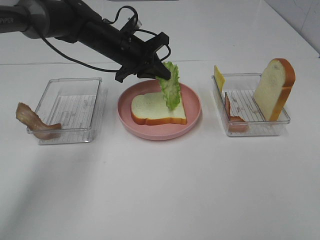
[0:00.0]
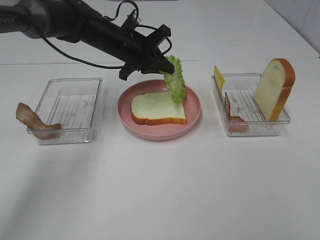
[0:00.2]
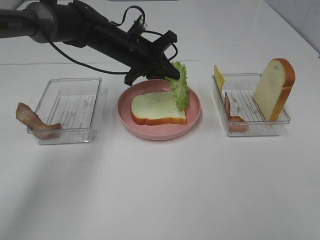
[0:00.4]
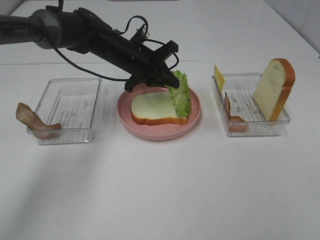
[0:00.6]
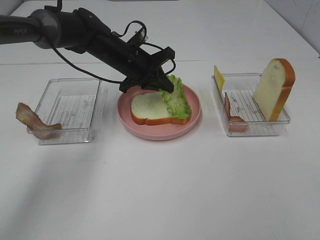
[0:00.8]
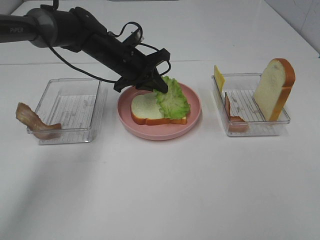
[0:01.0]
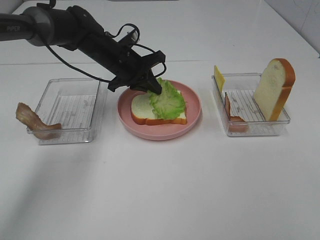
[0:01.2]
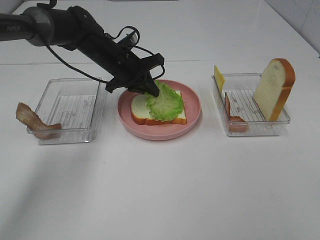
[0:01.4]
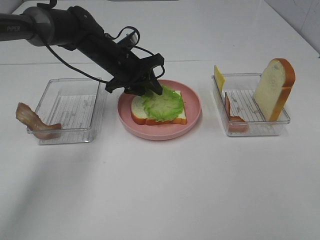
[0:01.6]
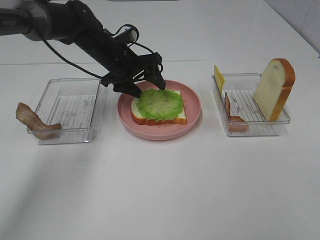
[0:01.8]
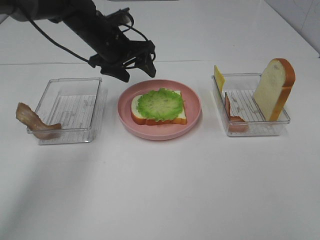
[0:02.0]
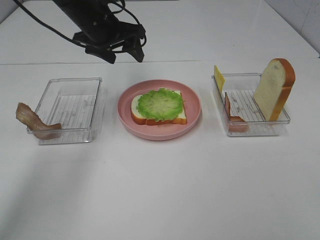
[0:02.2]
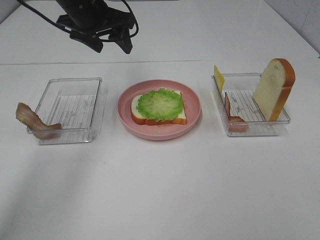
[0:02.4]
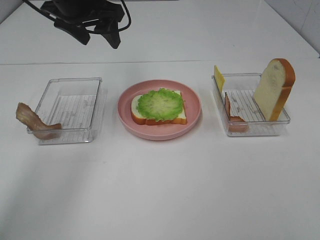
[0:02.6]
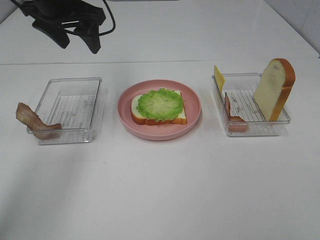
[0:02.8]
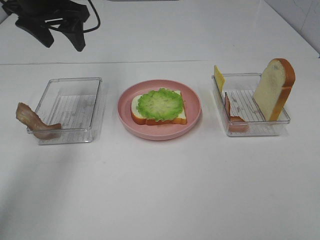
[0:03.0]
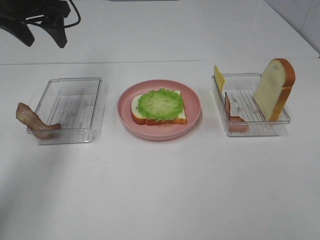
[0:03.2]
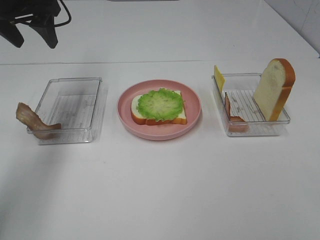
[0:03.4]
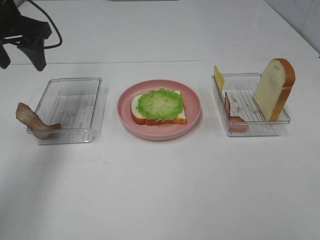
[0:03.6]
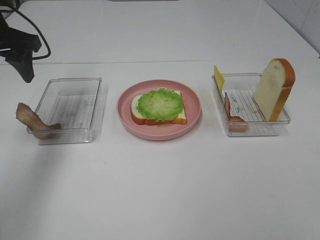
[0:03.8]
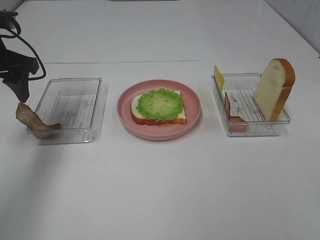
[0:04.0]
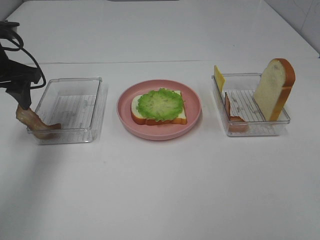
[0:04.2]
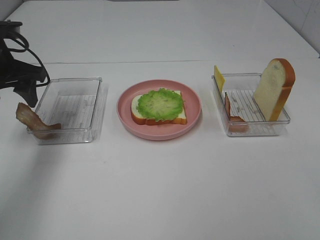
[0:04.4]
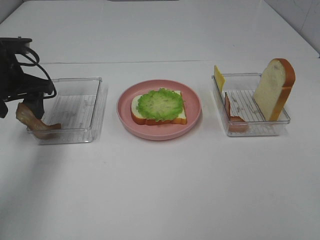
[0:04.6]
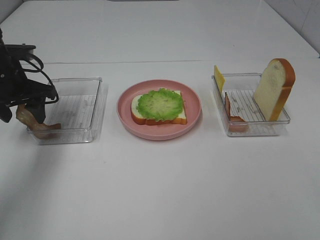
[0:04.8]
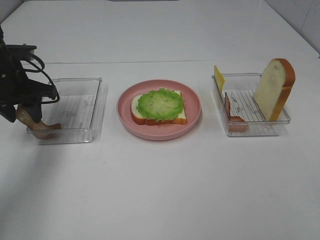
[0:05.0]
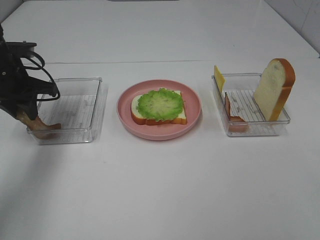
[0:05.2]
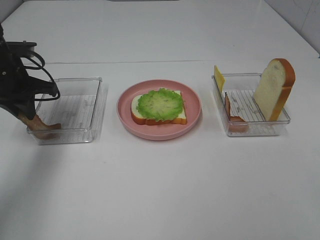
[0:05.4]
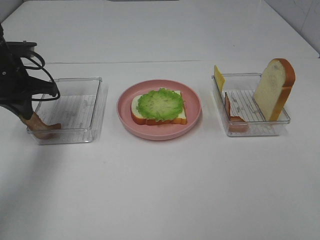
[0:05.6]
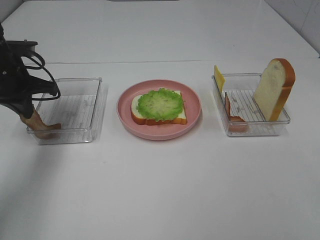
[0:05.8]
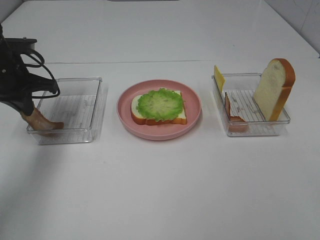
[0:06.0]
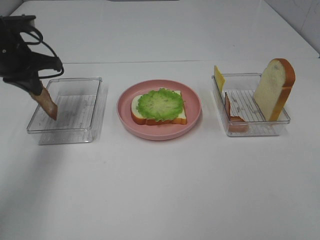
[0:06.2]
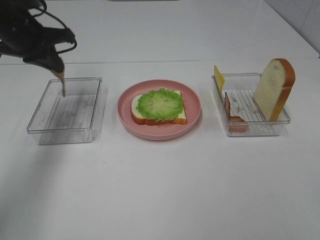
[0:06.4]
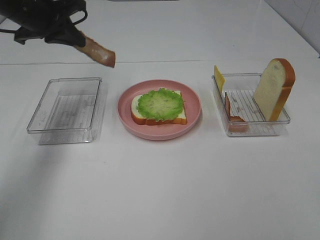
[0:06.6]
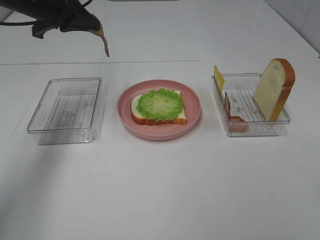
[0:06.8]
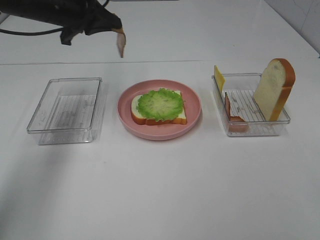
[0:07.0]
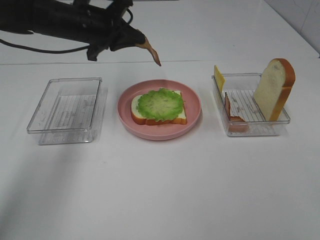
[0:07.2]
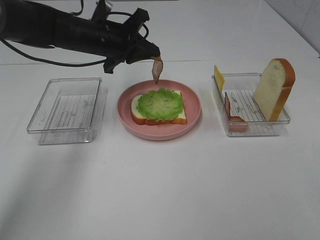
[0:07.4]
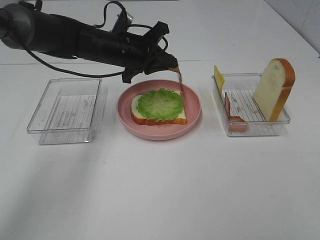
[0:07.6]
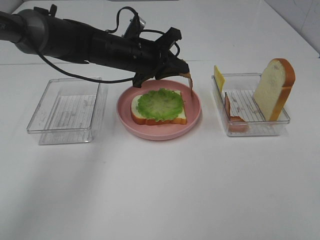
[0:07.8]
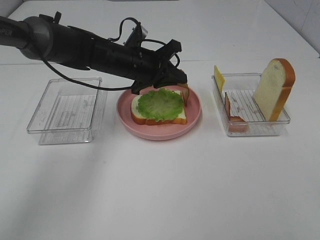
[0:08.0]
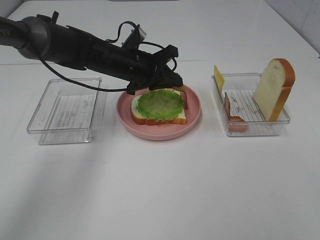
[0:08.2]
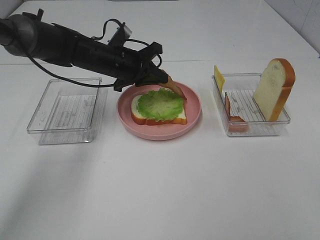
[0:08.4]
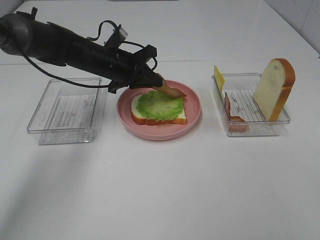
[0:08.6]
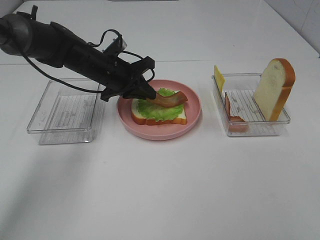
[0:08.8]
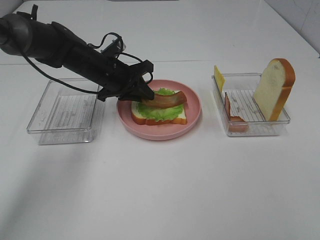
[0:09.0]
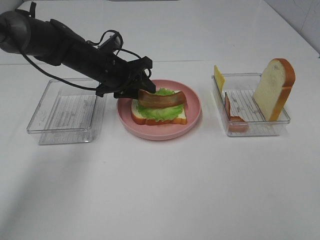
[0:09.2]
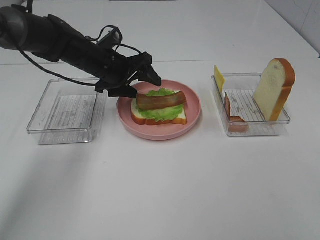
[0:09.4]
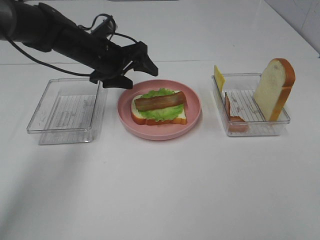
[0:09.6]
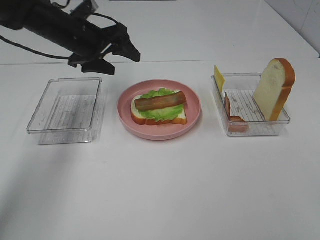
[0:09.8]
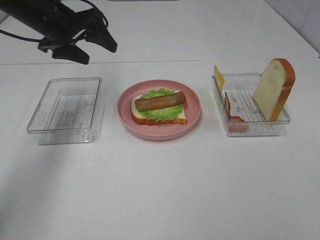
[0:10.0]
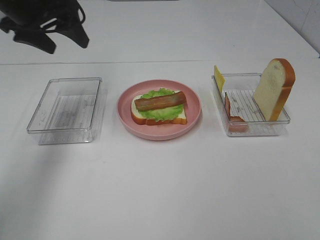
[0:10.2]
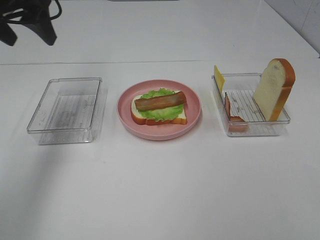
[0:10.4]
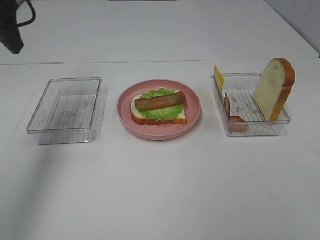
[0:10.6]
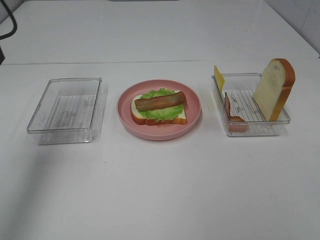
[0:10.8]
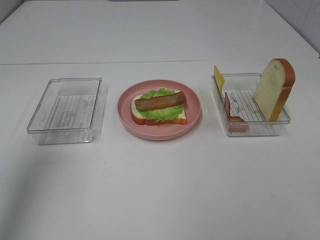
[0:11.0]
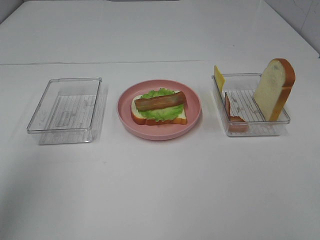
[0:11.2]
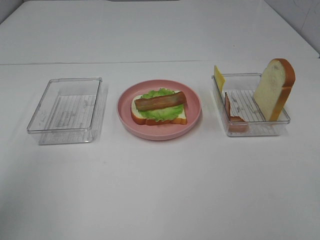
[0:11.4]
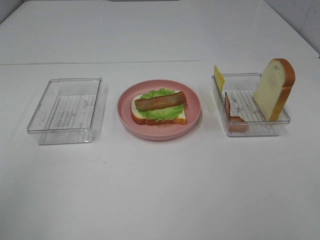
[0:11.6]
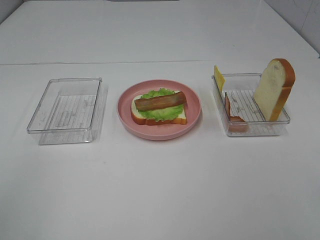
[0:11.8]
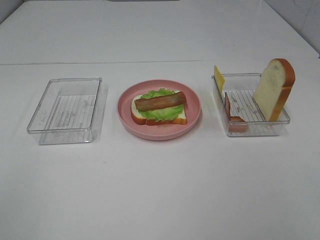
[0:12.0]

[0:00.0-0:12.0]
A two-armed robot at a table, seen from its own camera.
Task of the whole recording: Make sandwiches.
Step, 0:02.0 to 0:06.0: Left hand:grab the bacon.
Step, 0:06.2 to 0:09.8: Left hand:place bacon on lettuce slice.
0:00.0 to 0:01.6: The left gripper opens its fingers.
0:01.6 to 0:03.0: The left gripper shifts approximately 20 cm upward and to the left.
0:03.0 to 0:04.4: The left gripper is displaced downward, backward and to the left by some 10 cm.
0:04.4 to 0:06.0: The left gripper closes its fingers.
0:06.0 to 0:07.6: The left gripper travels to the right by about 20 cm.
0:07.6 to 0:09.0: The left gripper moves roughly 5 cm.
0:09.0 to 0:10.4: The left gripper travels upward and to the left by approximately 25 cm, and opens up.
0:10.4 to 0:12.0: The left gripper is displaced backward by some 35 cm.

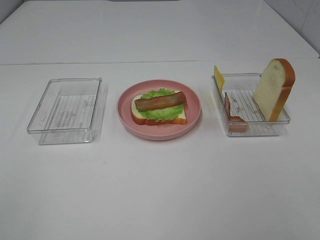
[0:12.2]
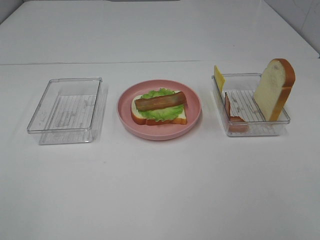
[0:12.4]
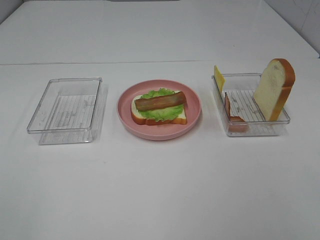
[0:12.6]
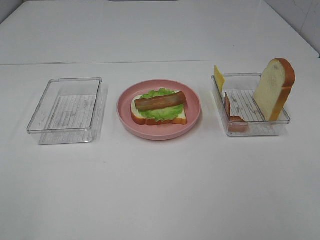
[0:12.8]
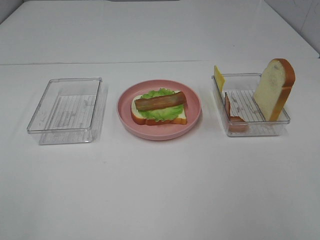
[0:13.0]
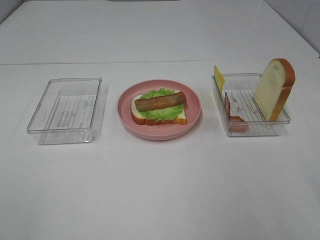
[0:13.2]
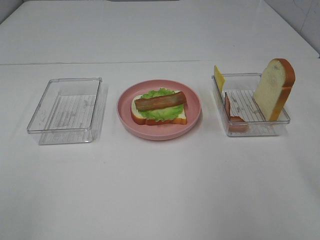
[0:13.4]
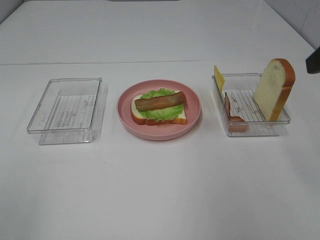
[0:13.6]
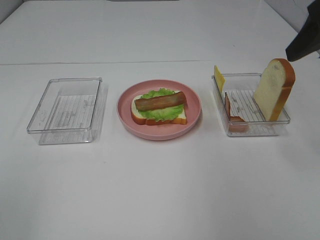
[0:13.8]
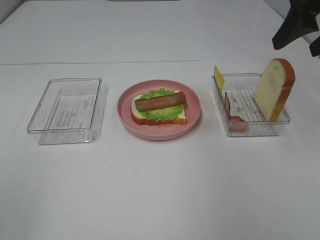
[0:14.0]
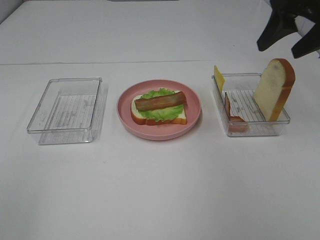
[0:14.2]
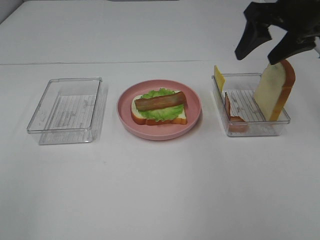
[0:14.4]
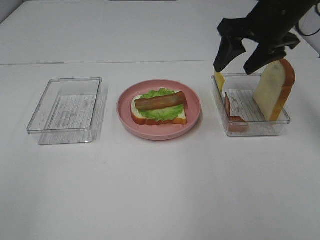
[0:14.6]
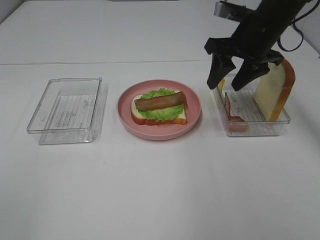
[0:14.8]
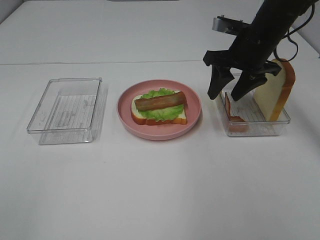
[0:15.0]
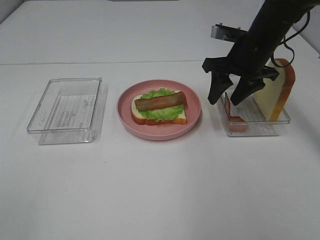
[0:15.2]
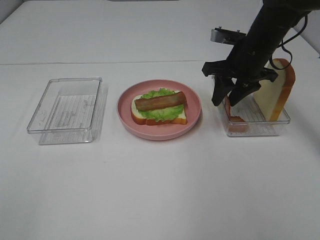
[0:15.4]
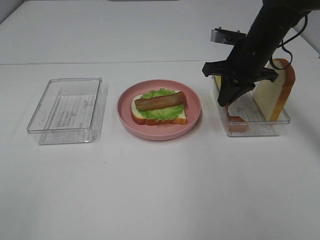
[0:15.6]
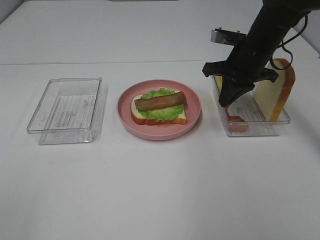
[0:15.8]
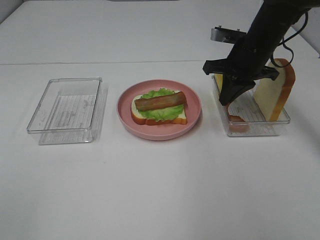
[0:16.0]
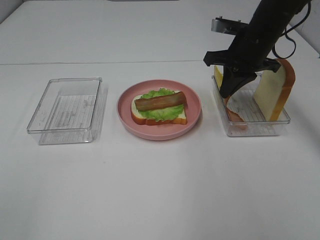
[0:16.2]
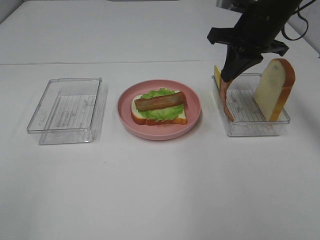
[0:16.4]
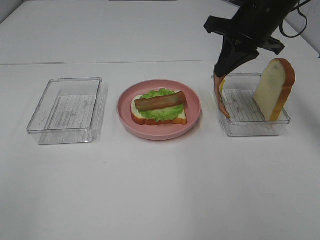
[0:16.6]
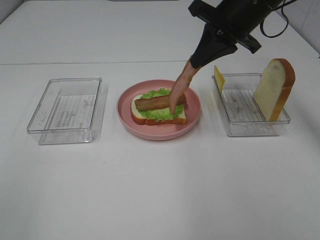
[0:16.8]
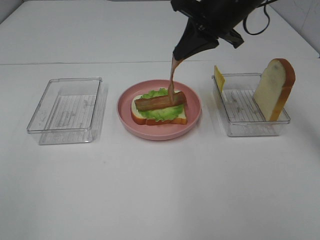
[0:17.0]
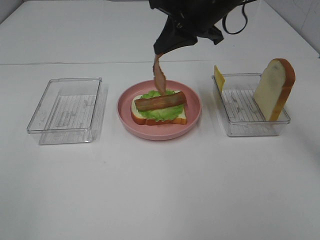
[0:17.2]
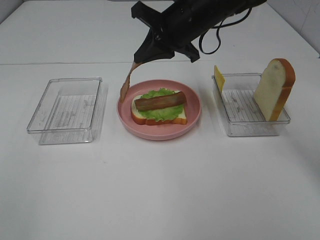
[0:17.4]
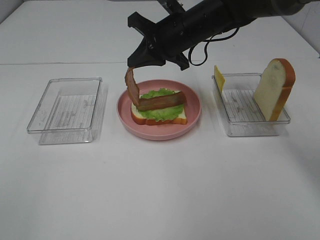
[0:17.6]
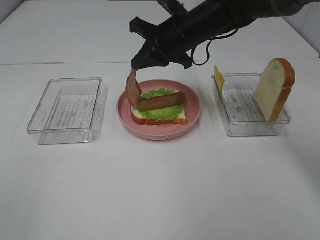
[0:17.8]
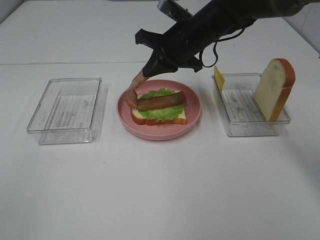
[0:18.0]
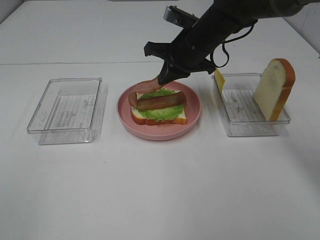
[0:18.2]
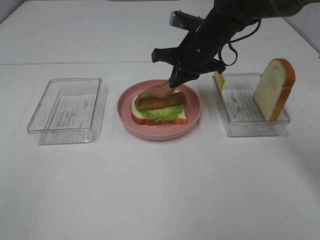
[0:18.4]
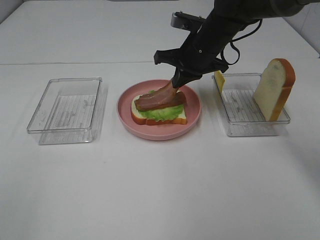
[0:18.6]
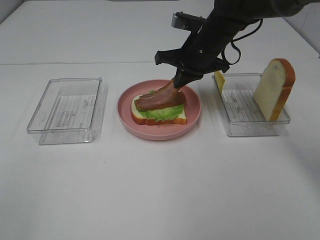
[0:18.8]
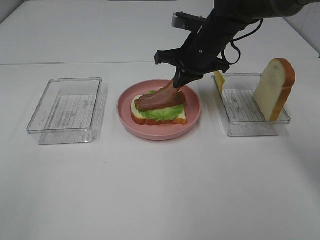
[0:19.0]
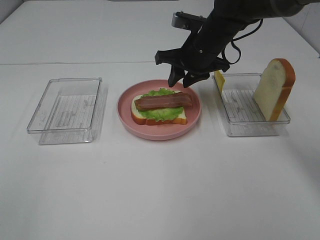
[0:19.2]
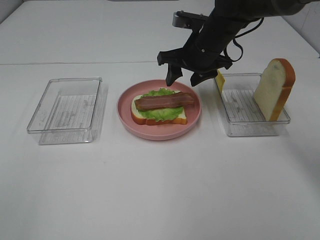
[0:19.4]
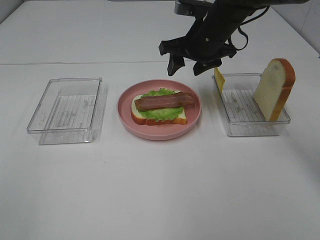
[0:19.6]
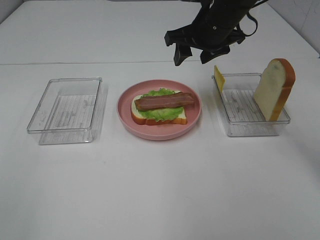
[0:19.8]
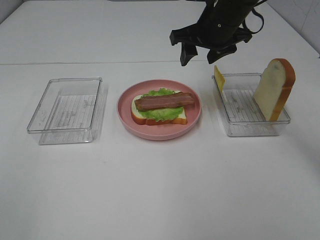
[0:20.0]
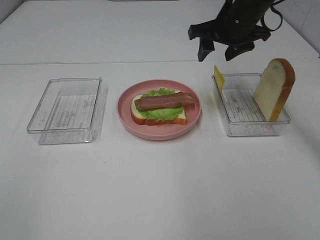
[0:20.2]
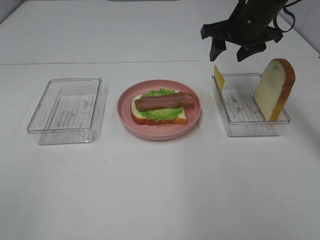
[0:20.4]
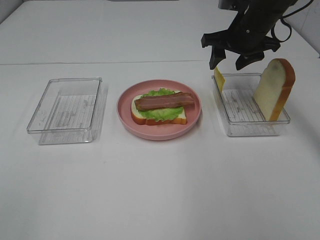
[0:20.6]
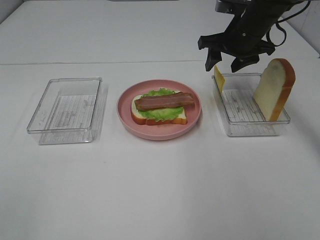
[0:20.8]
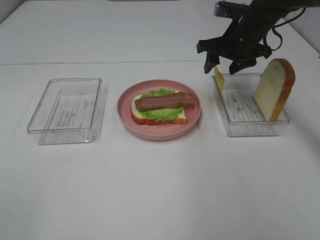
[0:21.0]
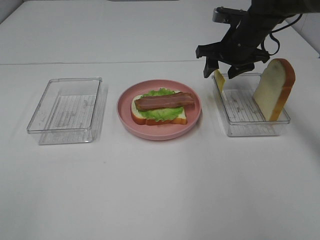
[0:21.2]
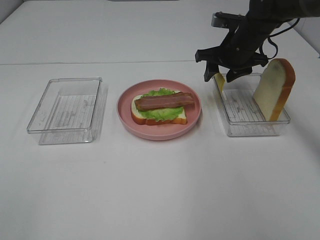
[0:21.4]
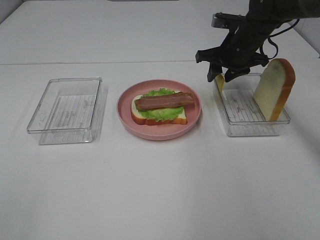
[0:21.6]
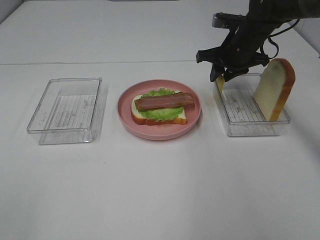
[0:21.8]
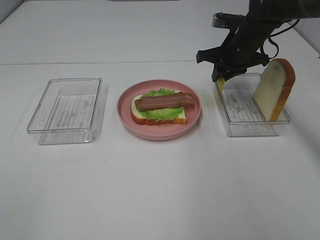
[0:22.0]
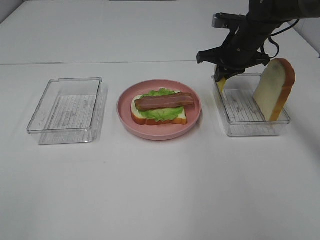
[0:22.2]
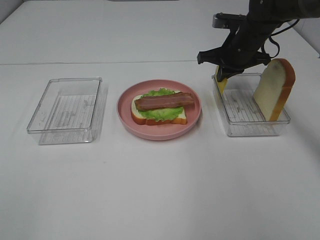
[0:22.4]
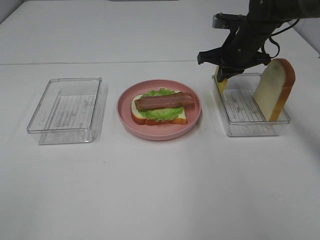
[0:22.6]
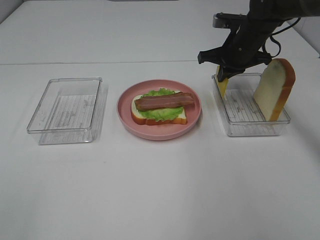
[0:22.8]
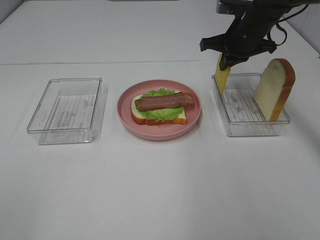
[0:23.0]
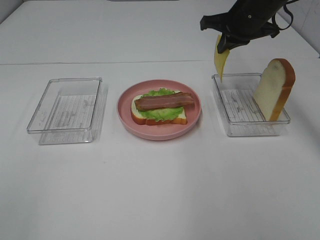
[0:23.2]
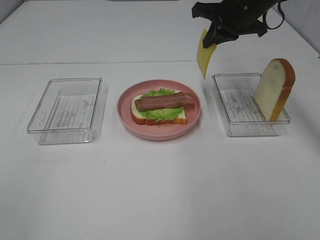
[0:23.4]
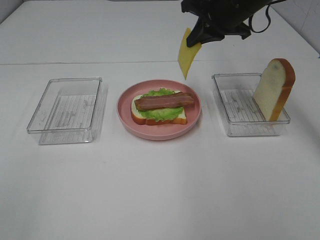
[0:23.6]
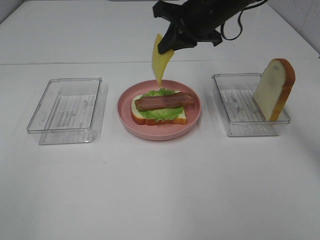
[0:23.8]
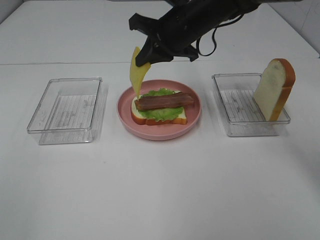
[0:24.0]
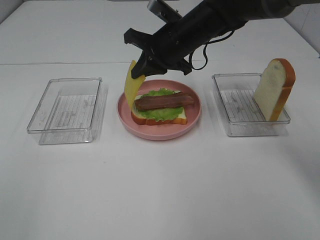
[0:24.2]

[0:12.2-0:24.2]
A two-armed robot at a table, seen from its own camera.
Task of the whole recording: Make sandwiches.
Step, 0:12.2 to 0:16.2: Right hand:grab the bacon.
Step, 0:16.4 to 0:20.2: Right hand:place bacon on bacon.
Step, 0:20.4 to 0:22.4: Right hand:grab the cheese slice.
0:12.2 to 0:13.8: The right gripper is displaced forward by roughly 30 cm.
0:13.8 to 0:15.2: The right gripper heads downward, forward and to the left, covering some 20 cm.
0:15.2 to 0:16.6: The right gripper goes roughly 5 cm upward, and closes.
0:16.6 to 0:18.2: The right gripper shifts some 10 cm to the left and downward.
0:18.2 to 0:19.8: The right gripper shifts by approximately 5 cm, and opens.
0:19.8 to 0:21.2: The right gripper is displaced to the right and downward by approximately 10 cm.
0:21.2 to 0:22.6: The right gripper closes up.
0:22.6 to 0:24.2: The right gripper is displaced to the left by roughly 15 cm.
